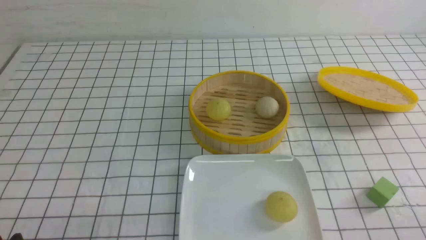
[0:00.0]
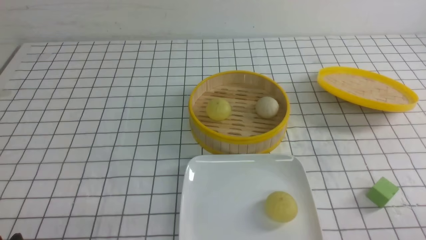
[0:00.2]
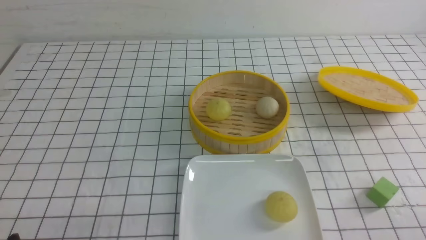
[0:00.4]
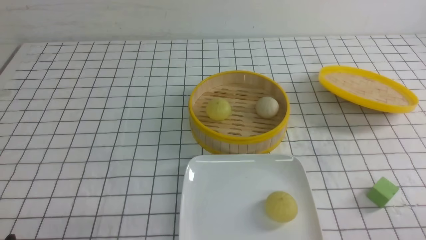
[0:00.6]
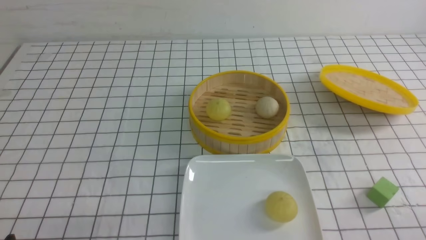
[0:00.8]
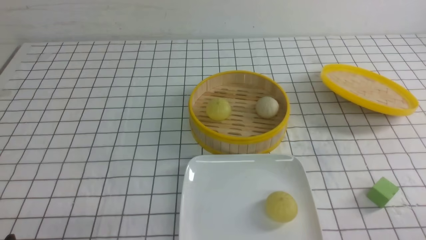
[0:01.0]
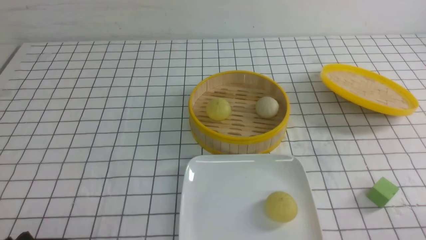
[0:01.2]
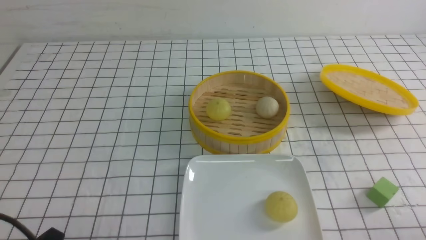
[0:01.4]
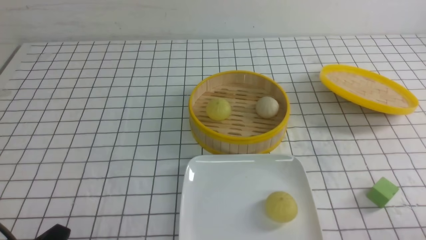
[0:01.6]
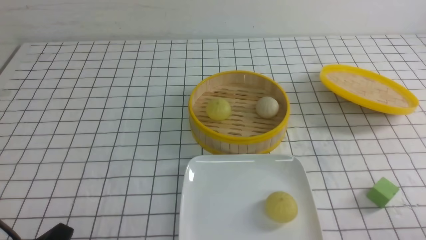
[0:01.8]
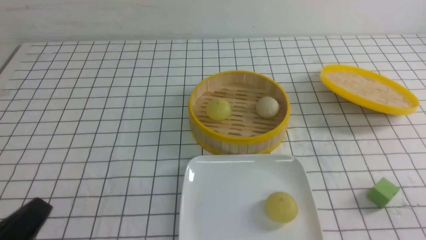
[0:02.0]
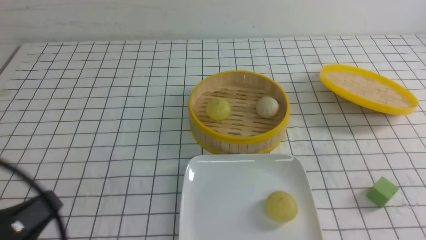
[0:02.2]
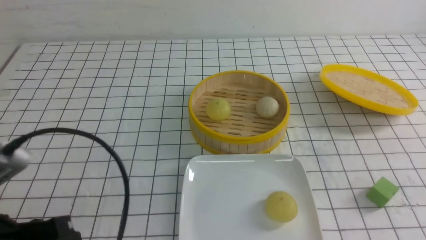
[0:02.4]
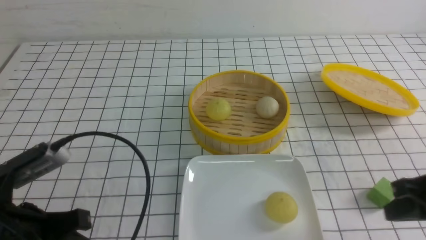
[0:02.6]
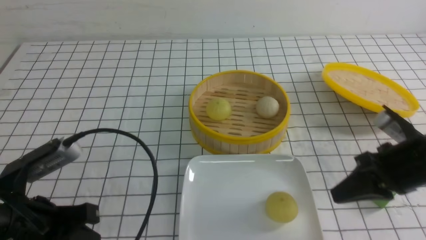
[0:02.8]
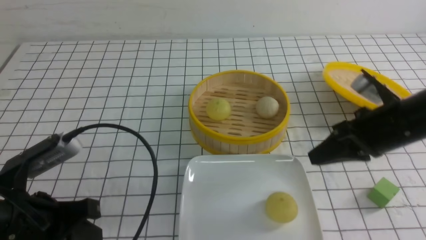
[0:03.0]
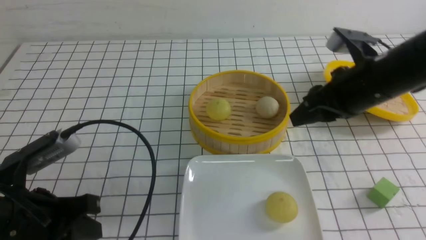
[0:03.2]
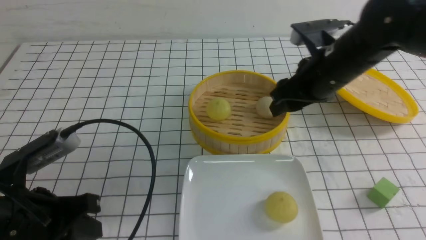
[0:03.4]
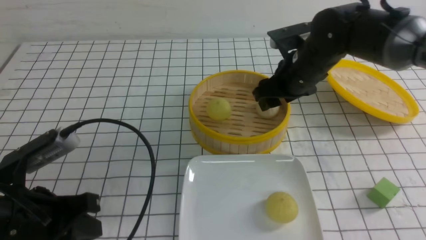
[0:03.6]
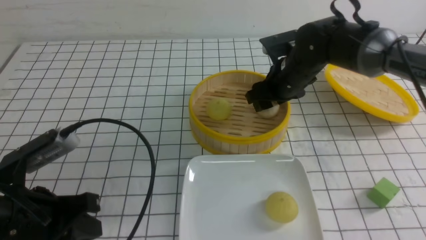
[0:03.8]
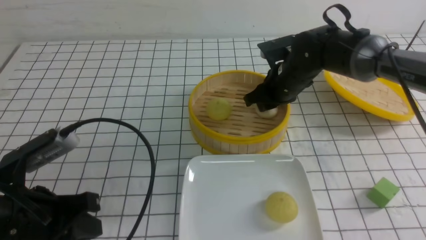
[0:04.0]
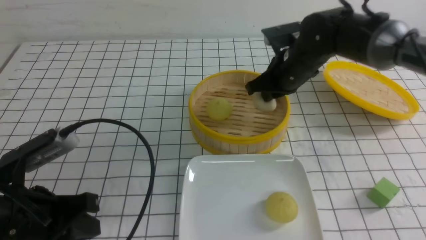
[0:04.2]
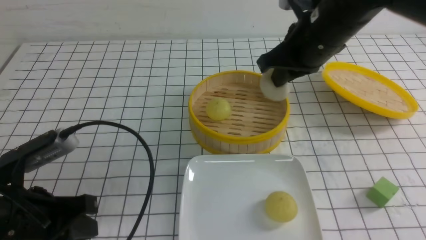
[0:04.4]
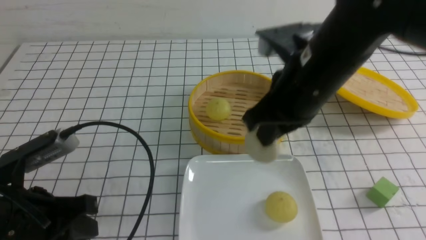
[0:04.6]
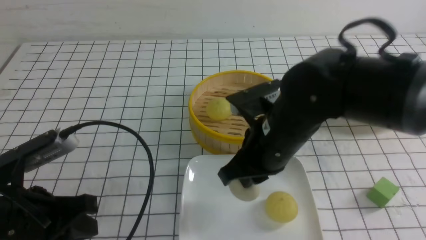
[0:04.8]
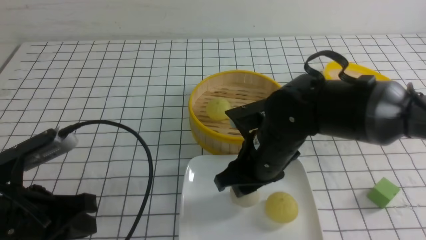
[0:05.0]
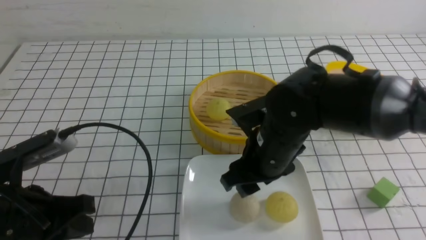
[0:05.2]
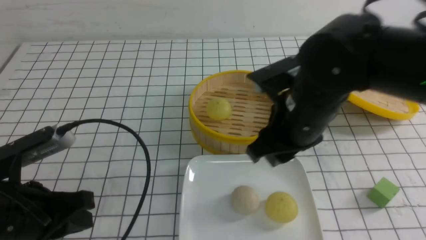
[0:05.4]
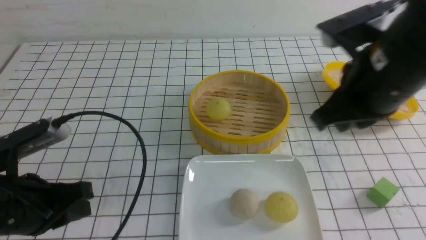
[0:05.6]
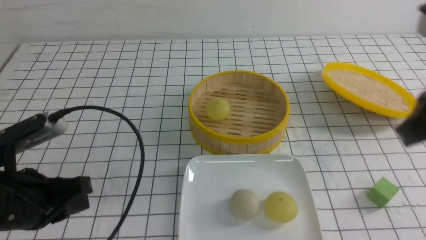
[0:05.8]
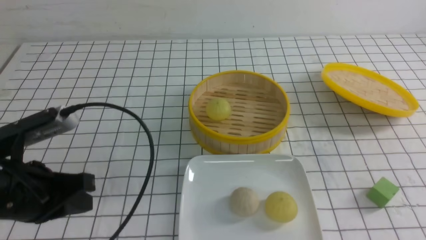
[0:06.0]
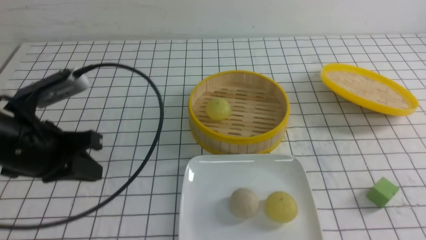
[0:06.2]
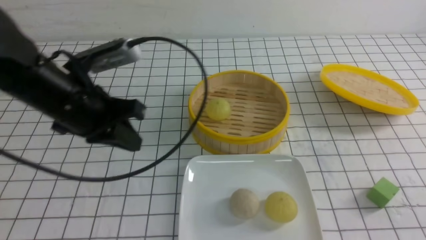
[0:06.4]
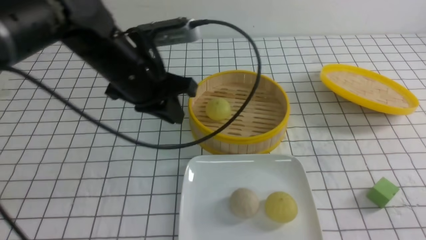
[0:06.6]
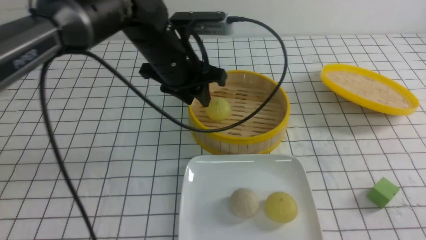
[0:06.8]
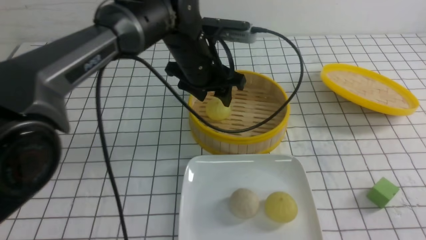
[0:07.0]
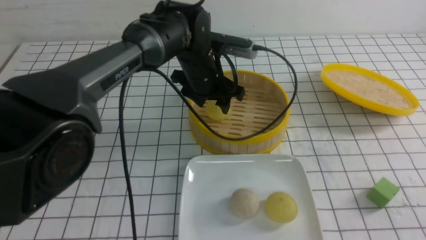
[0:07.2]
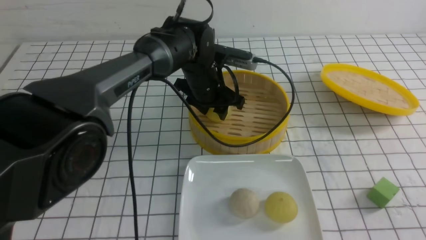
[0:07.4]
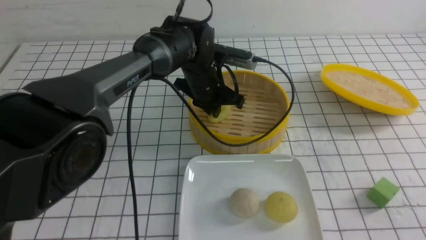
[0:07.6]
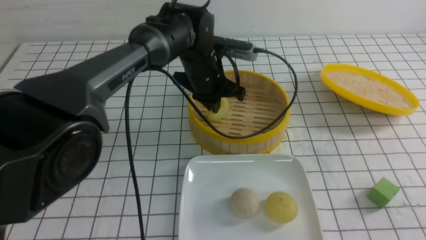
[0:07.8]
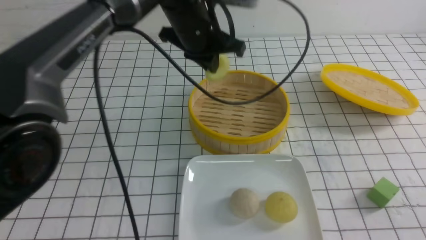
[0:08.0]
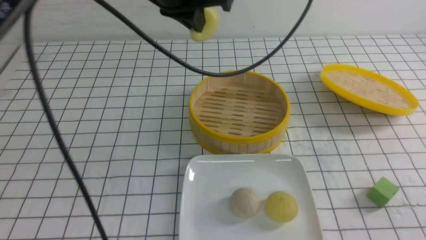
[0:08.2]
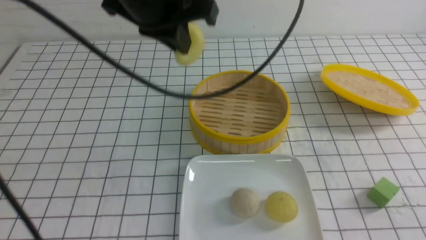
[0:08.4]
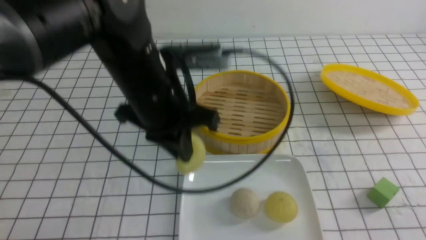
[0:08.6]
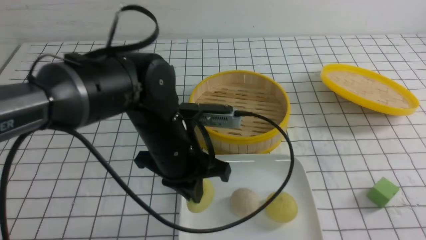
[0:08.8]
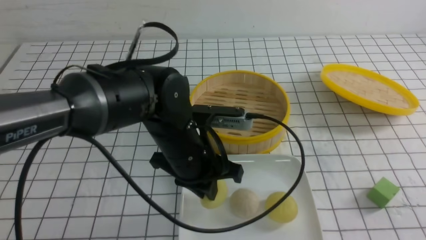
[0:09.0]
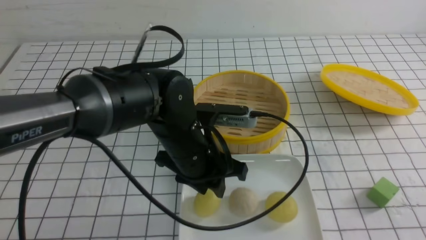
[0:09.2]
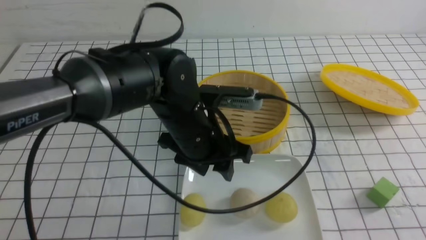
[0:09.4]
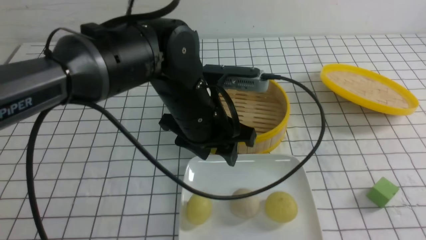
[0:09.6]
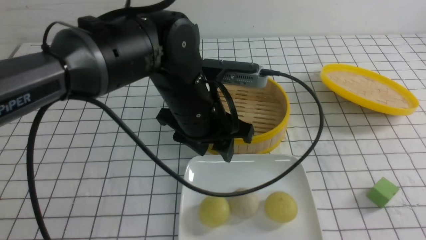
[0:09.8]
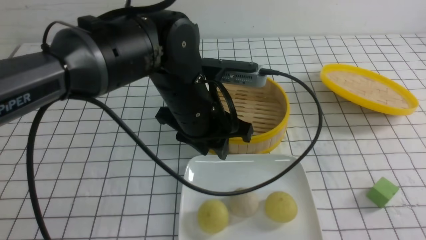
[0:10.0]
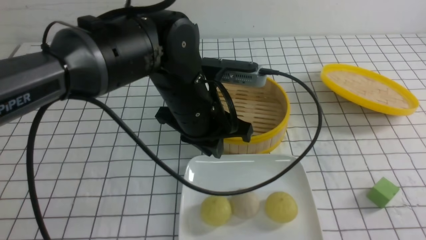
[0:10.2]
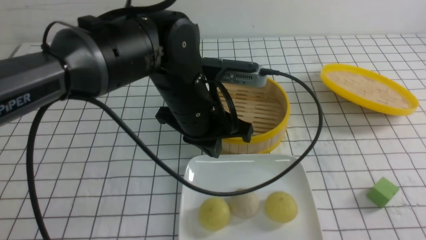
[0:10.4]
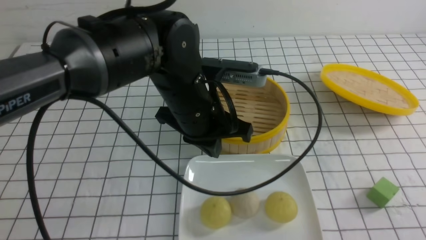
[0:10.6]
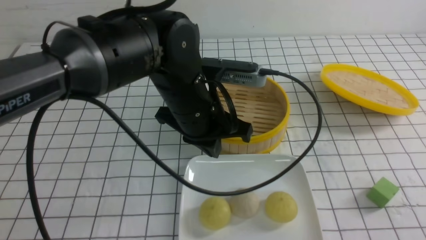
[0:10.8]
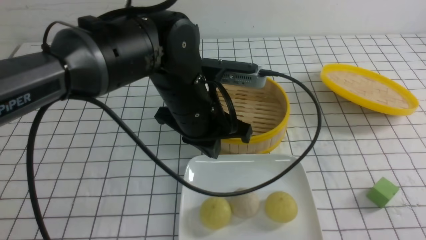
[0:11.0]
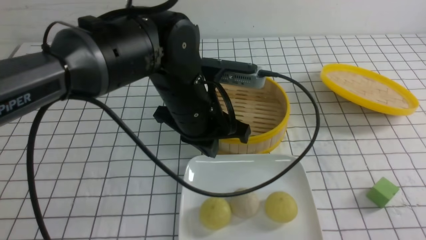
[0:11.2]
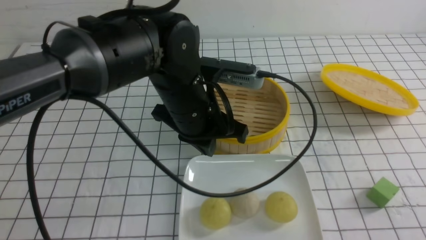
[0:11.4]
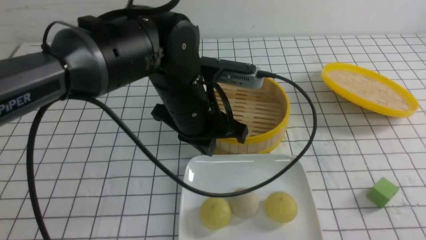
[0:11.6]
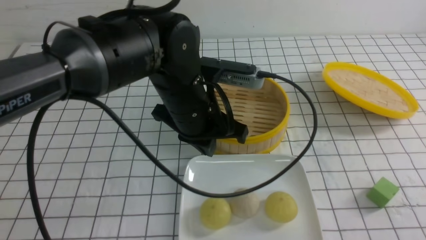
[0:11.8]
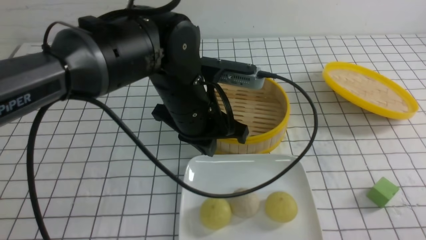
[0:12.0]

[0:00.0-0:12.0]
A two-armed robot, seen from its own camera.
Step, 0:00.0 to 0:04.0: use the right arm to grab the steamed stuffed bun that is closest to it.
Step, 0:04.2 to 0:05.0: use the right arm to put the steamed stuffed bun into the plate.
Step, 0:05.2 to 0:07.6: use the left arm to grab the steamed stuffed bun that is closest to it.
Step, 0:07.8 to 0:09.0: use the left arm to put the steamed stuffed bun into the plate.
0:01.6 to 0:03.0: The left gripper shifts some 10 cm forward and upward, and closes. The right gripper shifts about 25 cm forward.
0:03.0 to 0:04.4: The right gripper heads to the left, forward and upward, covering approximately 15 cm, and opens and closes again.
0:04.4 to 0:06.0: The right gripper shifts about 30 cm backward and to the right, and opens and closes again.
0:06.0 to 0:07.6: The right gripper shifts approximately 10 cm downward. The left gripper moves forward and to the right, about 30 cm, and opens and closes again.
0:07.6 to 0:09.0: The left gripper moves backward, some 15 cm, and goes upward and returns, roughly 20 cm each way.
0:09.0 to 0:10.4: The left gripper heads upward, covering roughly 5 cm, and opens, then closes once more; the right gripper goes roughly 5 cm backward.
0:10.4 to 0:12.0: The right gripper is displaced downward by some 5 cm.

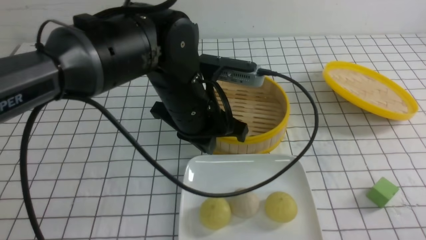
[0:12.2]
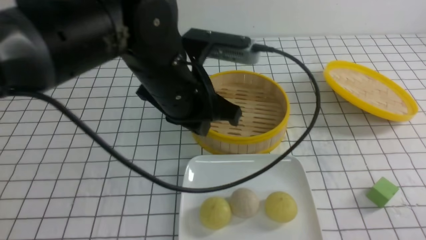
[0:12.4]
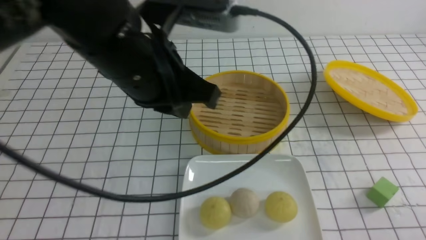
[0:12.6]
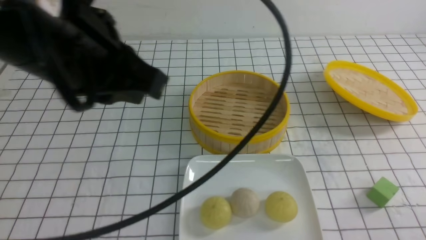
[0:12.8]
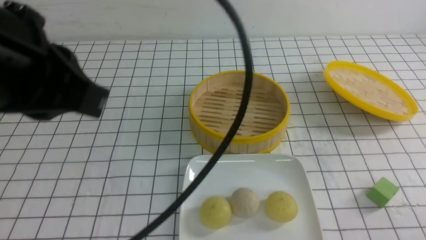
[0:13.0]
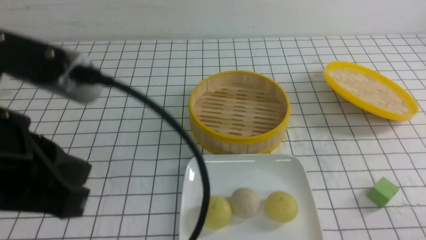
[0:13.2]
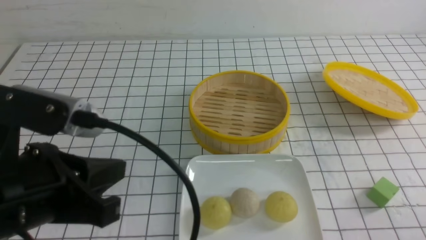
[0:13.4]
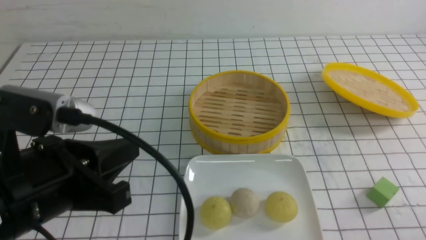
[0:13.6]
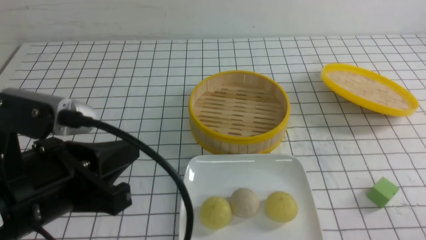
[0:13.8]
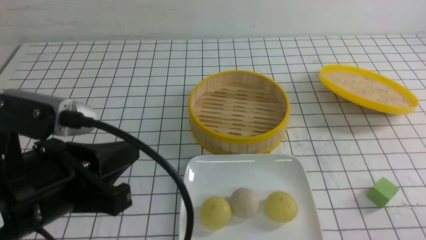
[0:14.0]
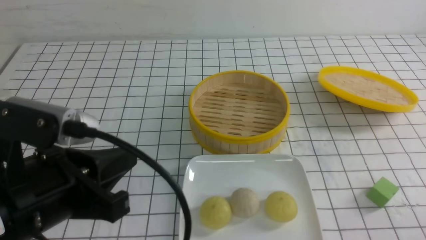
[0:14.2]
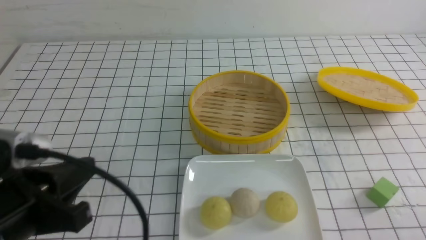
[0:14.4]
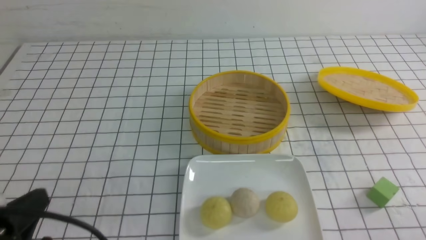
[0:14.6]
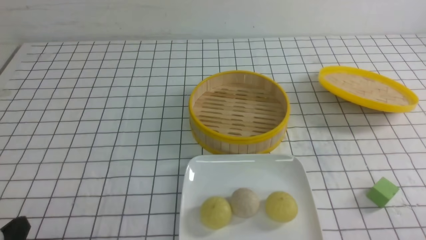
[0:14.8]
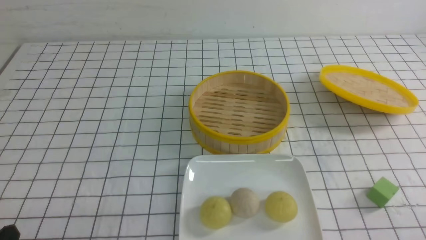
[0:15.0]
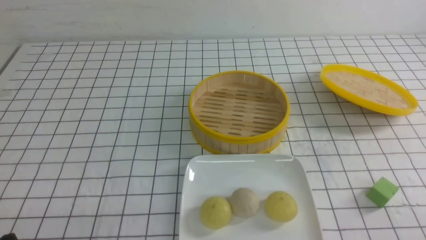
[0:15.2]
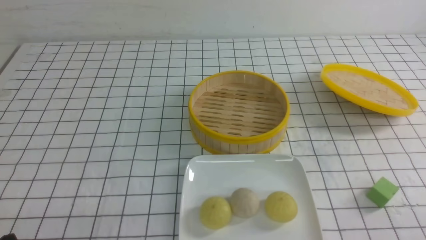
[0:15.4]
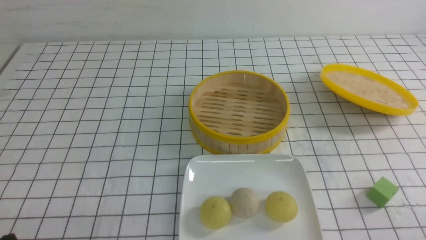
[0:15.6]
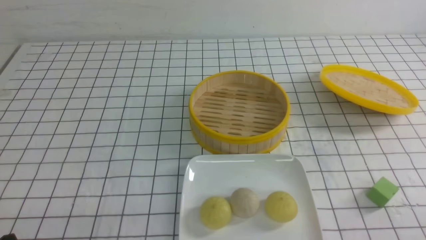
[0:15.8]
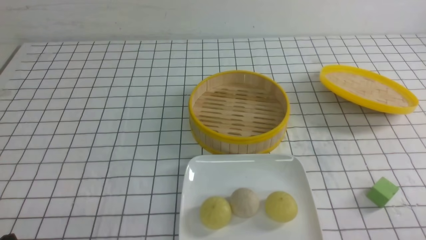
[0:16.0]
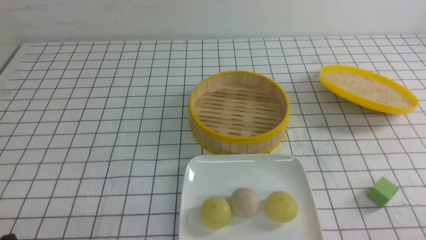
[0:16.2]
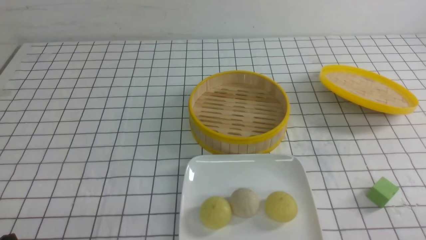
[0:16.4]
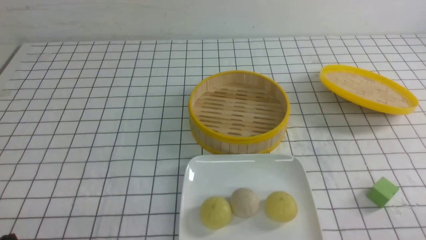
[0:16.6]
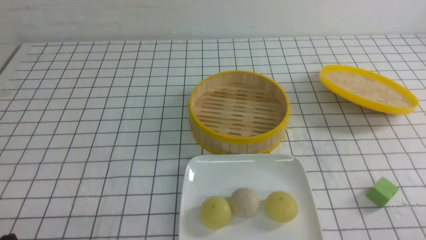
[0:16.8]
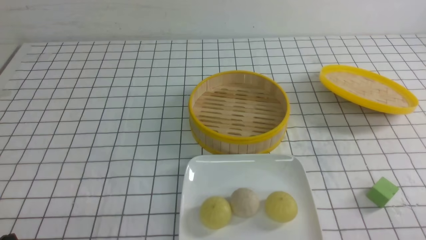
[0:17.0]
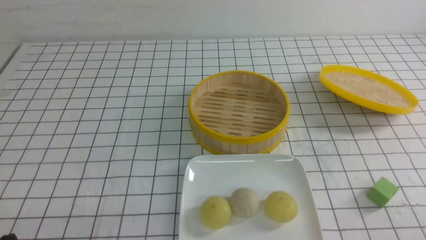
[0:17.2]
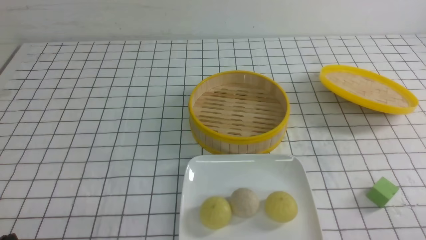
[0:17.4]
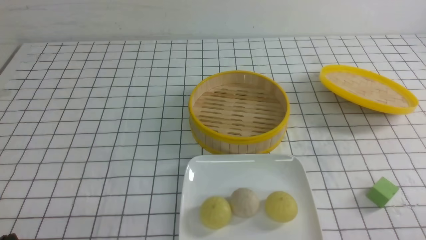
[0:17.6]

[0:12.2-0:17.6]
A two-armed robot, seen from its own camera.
0:12.2 to 0:13.6: The left gripper moves backward and to the left, some 20 cm.
0:13.6 to 0:15.0: The left gripper moves downward, to the left and backward, approximately 20 cm.
0:15.0 to 0:17.6: Both grippers stay about where they are.
